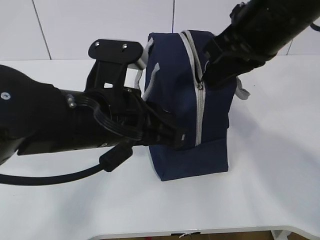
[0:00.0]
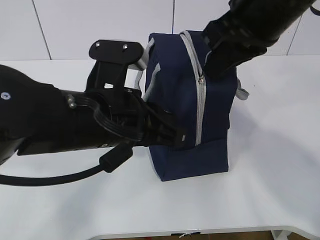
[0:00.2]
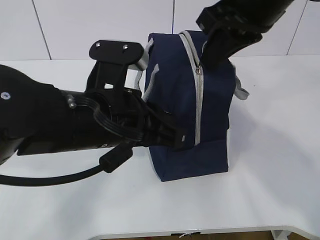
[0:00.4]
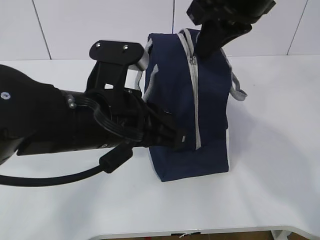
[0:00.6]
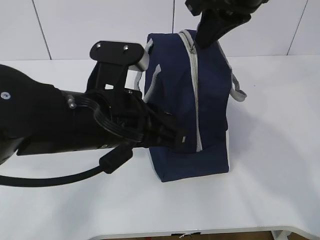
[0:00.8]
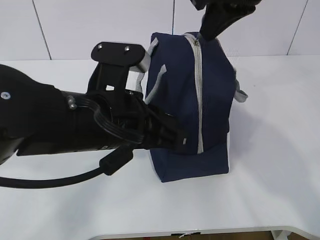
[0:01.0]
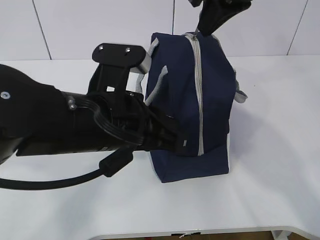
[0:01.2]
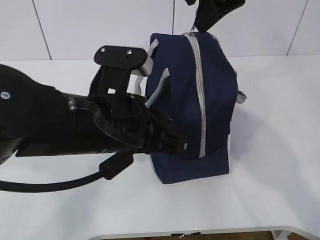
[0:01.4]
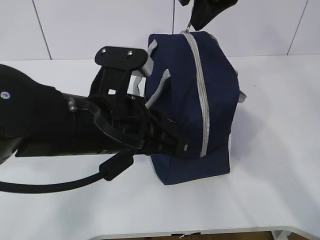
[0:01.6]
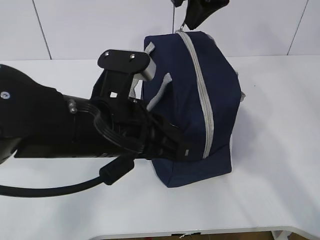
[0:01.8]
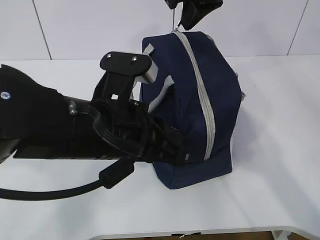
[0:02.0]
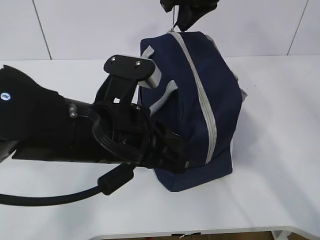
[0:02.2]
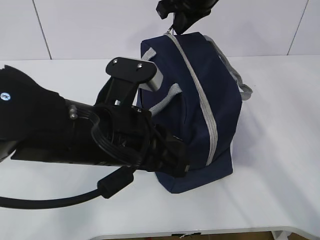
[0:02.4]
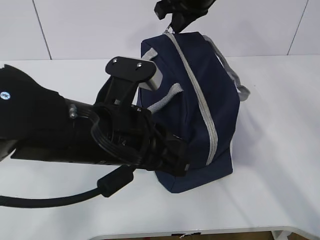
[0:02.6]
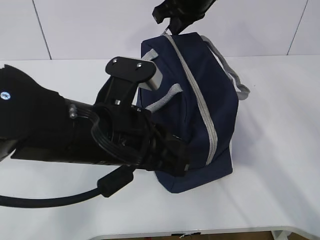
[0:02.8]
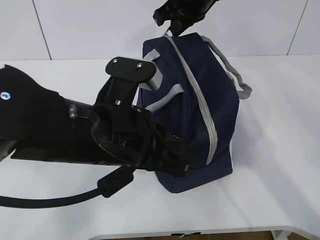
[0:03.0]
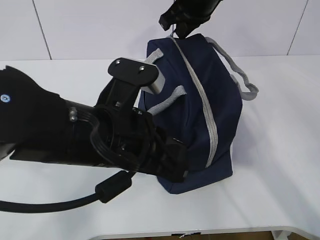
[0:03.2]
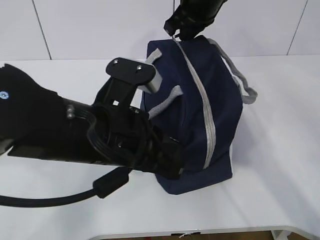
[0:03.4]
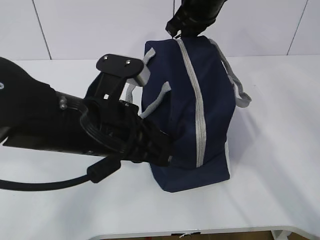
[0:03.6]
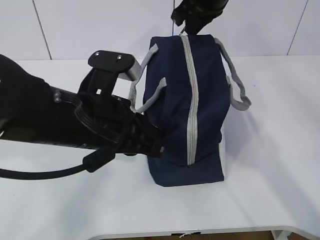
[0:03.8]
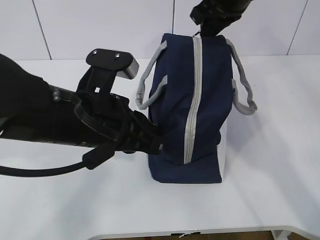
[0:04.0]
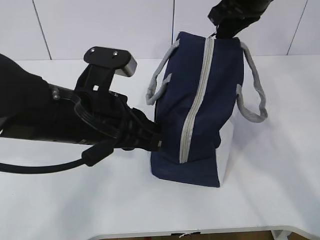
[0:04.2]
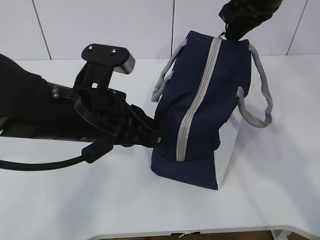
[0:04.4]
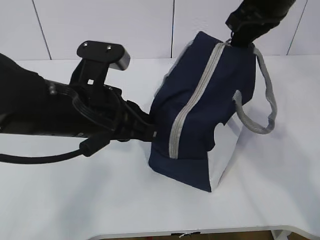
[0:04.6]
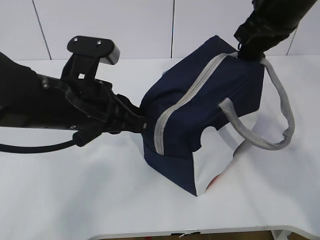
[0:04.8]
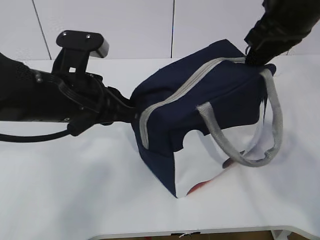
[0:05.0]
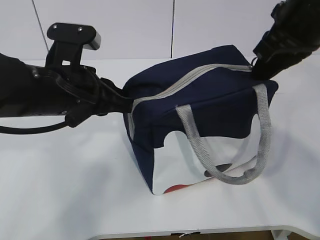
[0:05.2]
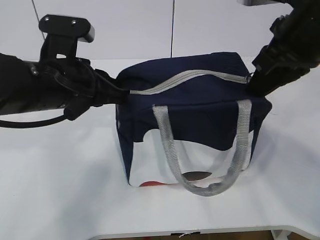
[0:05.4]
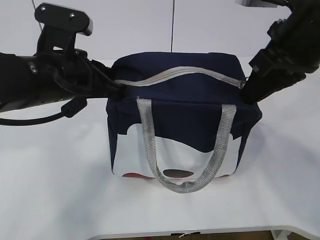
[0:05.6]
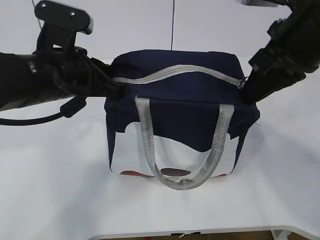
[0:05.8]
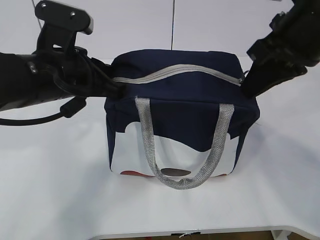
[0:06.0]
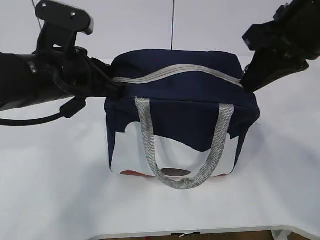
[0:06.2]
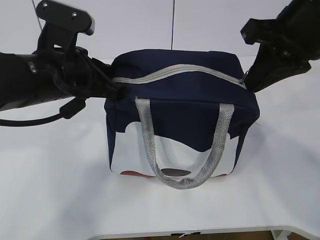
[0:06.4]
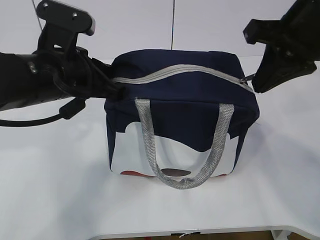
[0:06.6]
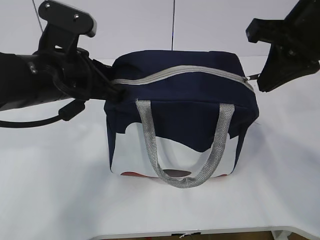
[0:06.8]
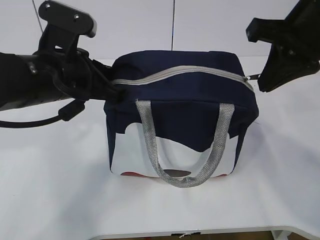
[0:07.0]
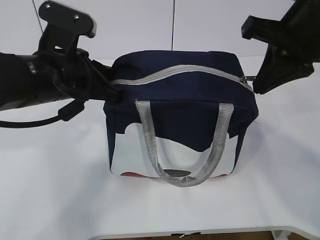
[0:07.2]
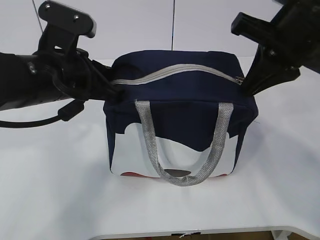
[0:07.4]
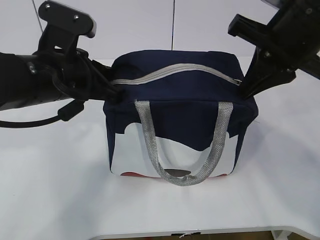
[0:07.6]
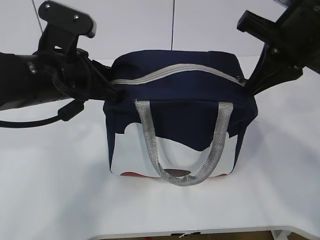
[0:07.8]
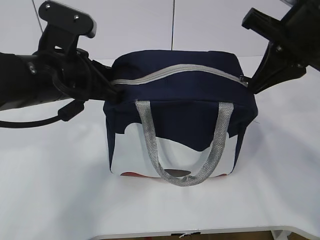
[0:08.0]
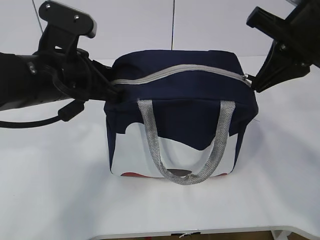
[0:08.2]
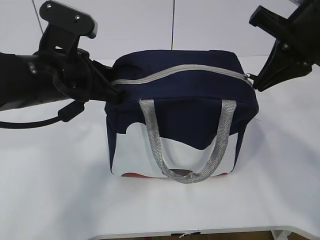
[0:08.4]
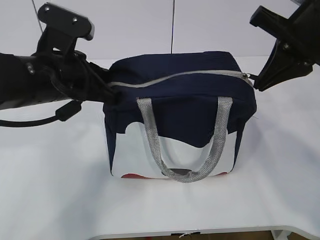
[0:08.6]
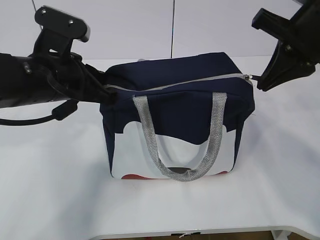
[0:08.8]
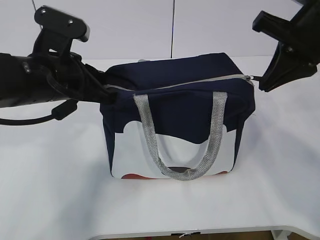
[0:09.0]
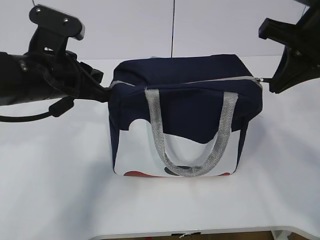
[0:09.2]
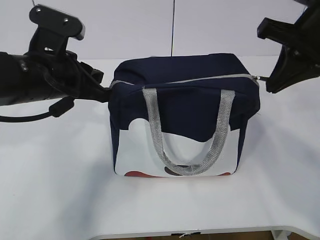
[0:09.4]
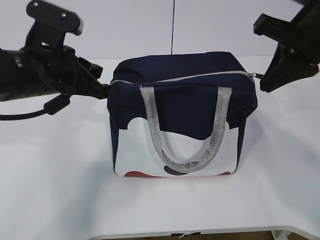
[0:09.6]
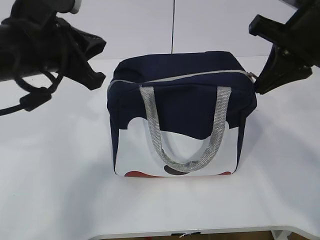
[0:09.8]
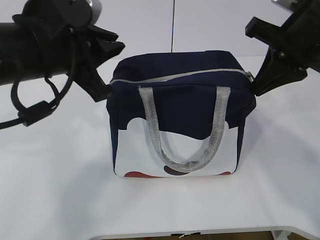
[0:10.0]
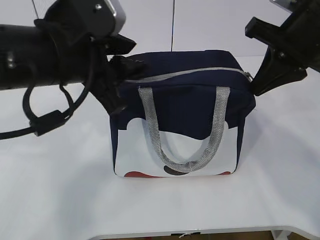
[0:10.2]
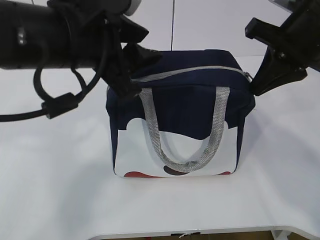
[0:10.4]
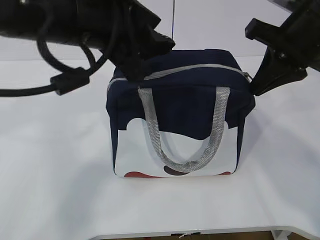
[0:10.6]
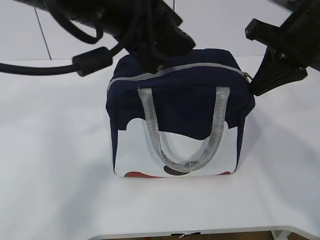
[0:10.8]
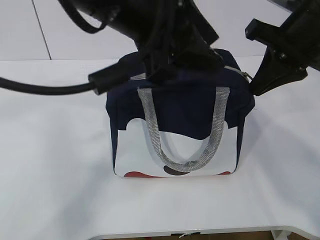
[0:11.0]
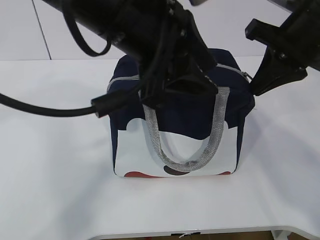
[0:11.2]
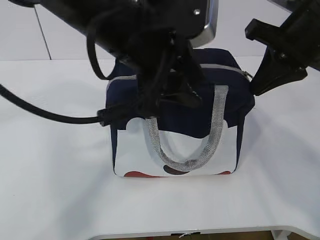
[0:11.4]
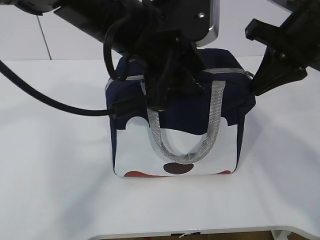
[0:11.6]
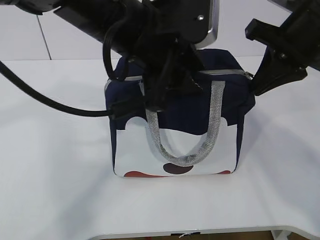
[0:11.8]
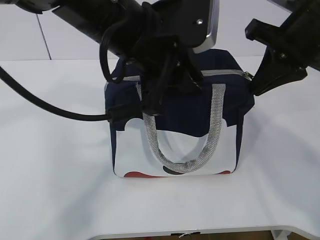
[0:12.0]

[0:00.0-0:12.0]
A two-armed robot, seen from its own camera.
0:00.0 to 0:01.6: The right gripper moves forward, some 10 cm.
0:01.6 to 0:03.0: The right gripper moves forward and downward, about 10 cm.
0:03.0 to 0:04.4: The right gripper travels to the right and backward by approximately 10 cm.
0:04.4 to 0:06.0: The right gripper is displaced backward by roughly 10 cm. The left gripper heads forward, covering roughly 5 cm.
0:07.6 to 0:09.0: There are only small adjustments of the grippers.
0:09.0 to 0:10.4: The left gripper heads upward and to the right, covering approximately 10 cm, and opens up.
0:10.4 to 0:12.0: The left gripper shifts about 5 cm to the right.

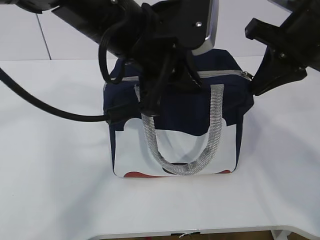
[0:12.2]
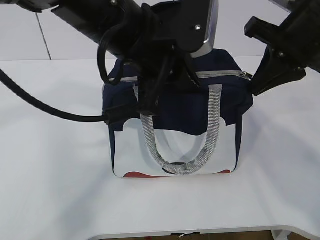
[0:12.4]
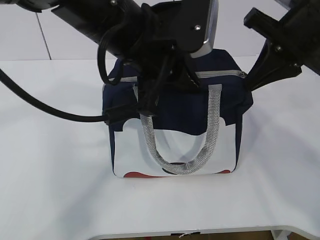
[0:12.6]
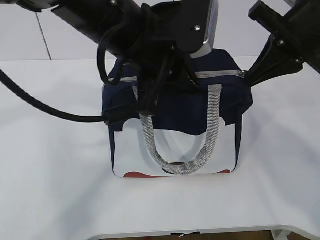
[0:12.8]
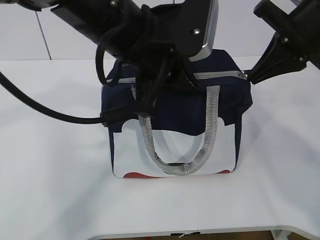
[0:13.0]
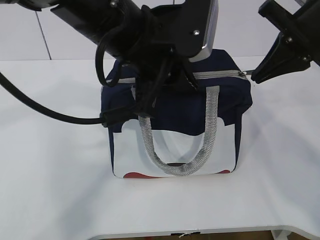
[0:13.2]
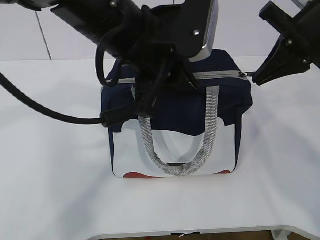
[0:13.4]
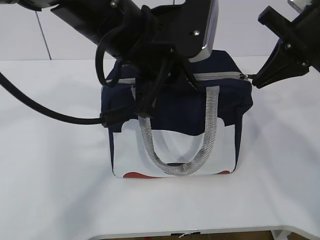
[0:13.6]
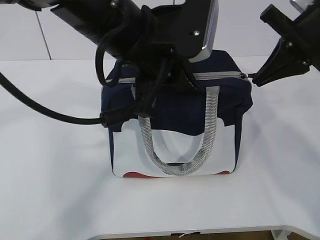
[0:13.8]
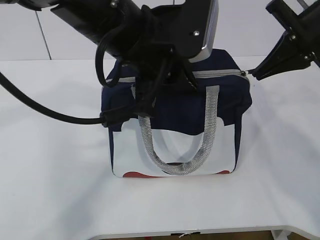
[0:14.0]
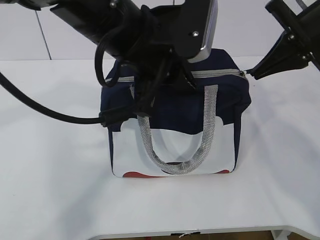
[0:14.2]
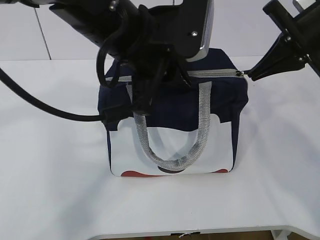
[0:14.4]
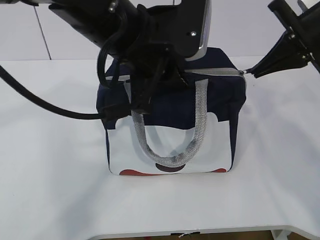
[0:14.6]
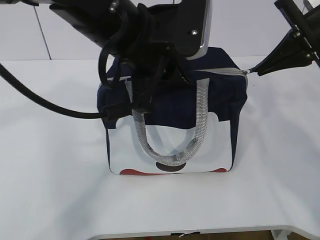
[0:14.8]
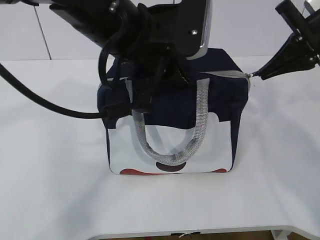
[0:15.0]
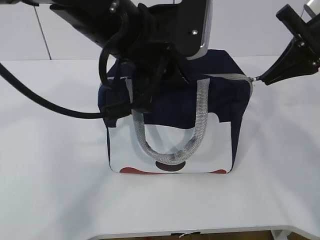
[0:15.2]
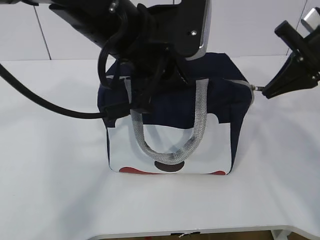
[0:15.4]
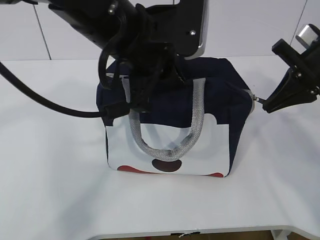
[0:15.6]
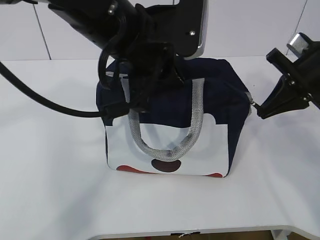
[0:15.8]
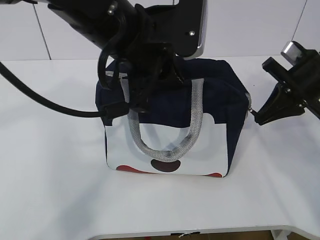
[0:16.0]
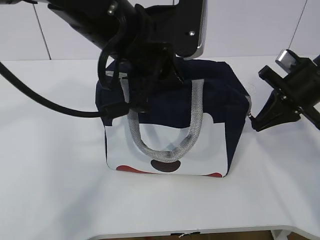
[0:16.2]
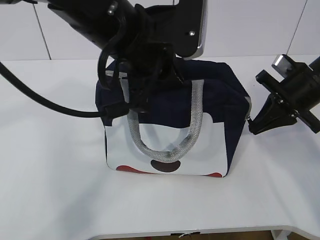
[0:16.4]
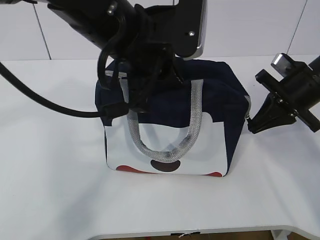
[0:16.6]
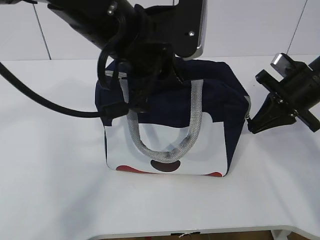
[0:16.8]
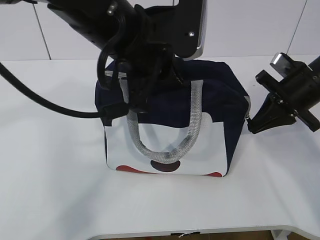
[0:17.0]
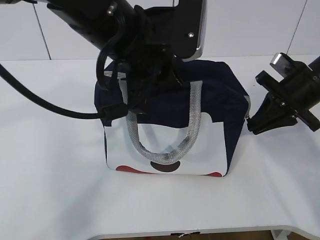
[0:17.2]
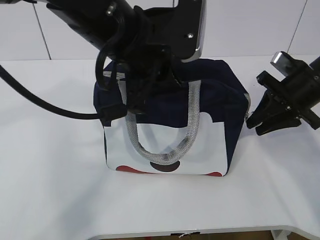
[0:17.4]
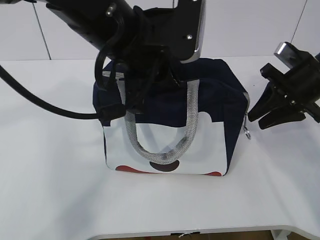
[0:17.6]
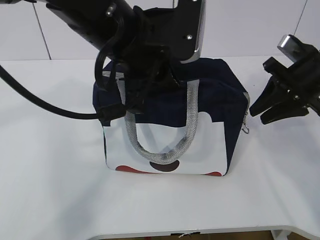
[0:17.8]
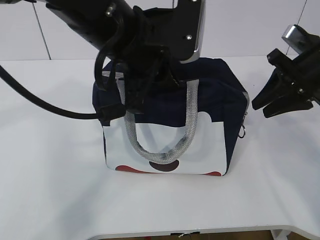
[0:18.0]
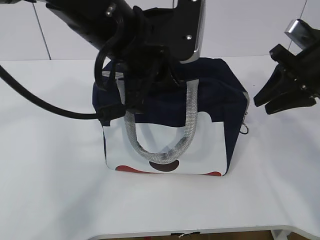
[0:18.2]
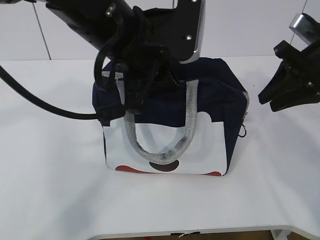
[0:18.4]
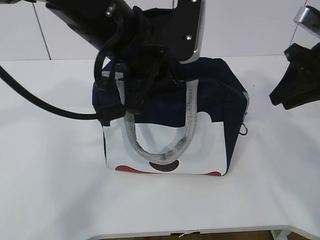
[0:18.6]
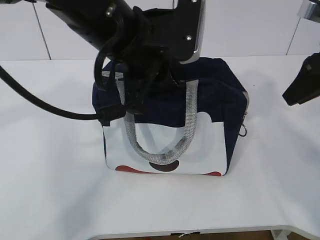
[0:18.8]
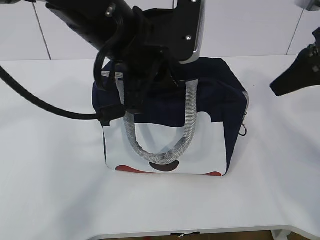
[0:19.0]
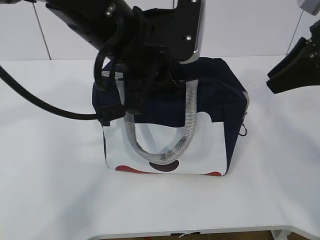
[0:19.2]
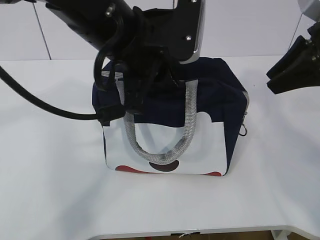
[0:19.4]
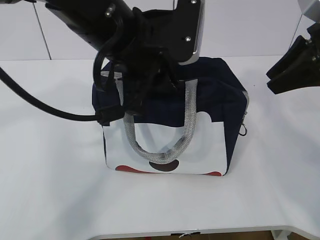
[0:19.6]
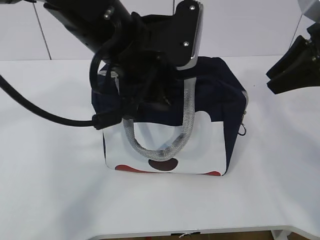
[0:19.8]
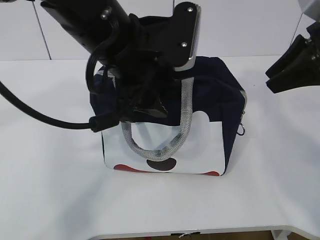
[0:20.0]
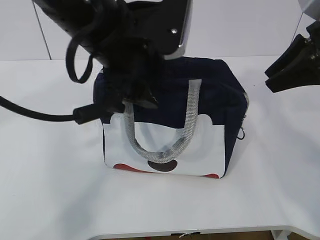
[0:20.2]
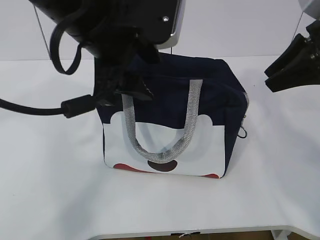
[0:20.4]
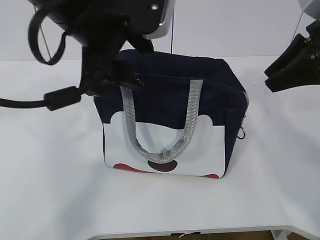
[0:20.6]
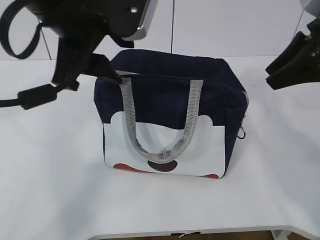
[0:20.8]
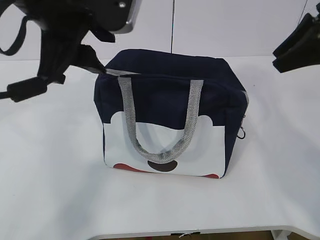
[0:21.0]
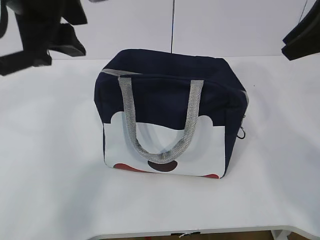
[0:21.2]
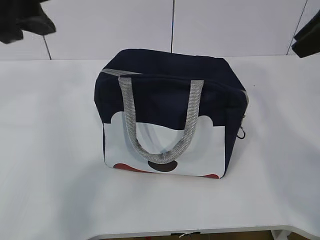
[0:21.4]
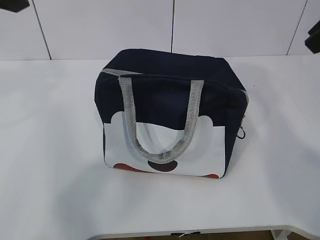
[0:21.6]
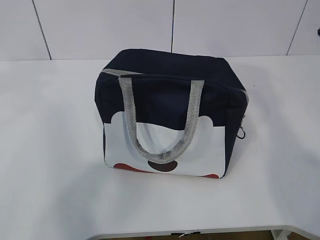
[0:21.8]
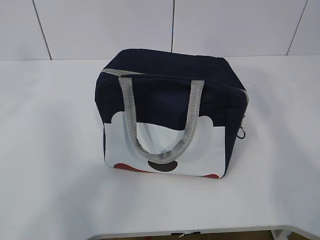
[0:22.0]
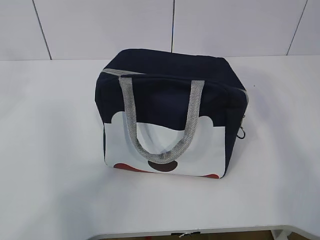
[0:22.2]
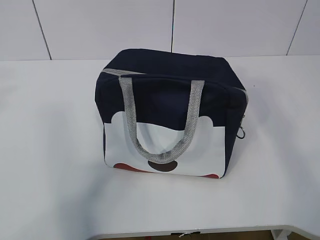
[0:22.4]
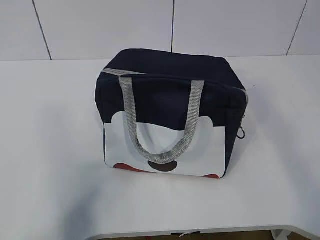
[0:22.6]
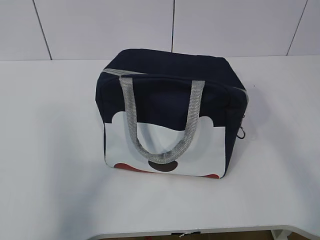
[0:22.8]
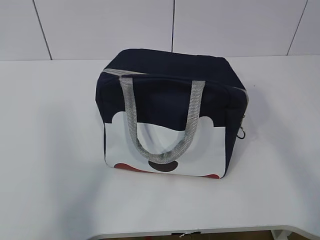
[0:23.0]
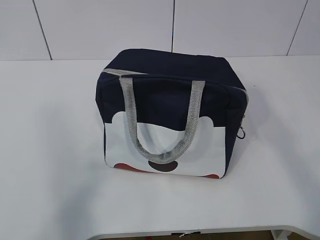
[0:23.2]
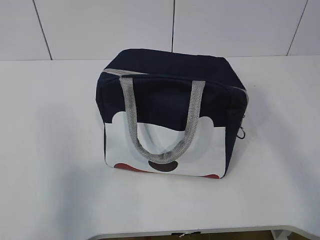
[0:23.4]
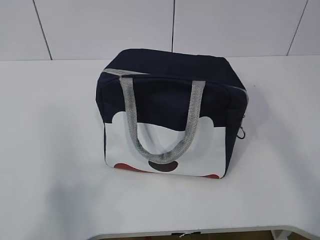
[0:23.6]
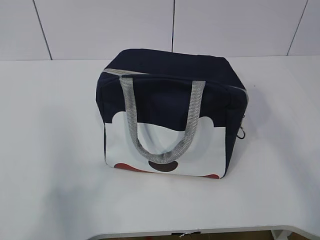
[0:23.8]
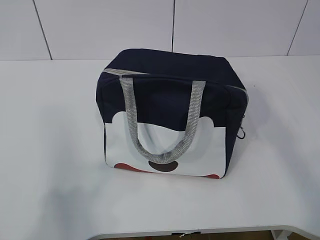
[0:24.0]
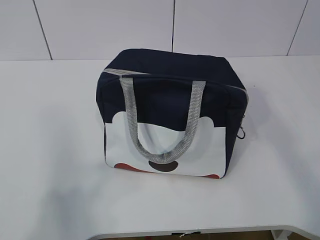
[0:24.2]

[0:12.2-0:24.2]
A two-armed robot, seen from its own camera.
Step, 0:12.2 to 0:18.4: zip up the zipper to close the bag.
0:12.2 to 0:13.8: The grippers move only a little.
0:13.8 to 0:15.2: The grippers move only a little.
0:15.2 to 0:16.6: The right gripper goes approximately 10 cm downward.
0:16.6 to 0:18.2: The right gripper heads upward, covering about 5 cm, and opens.
0:18.2 to 0:19.8: The right gripper shifts some 5 cm upward. The left gripper opens up.
0:19.8 to 0:21.2: The left gripper moves to the left and upward, approximately 10 cm.
0:21.2 to 0:22.6: The left gripper moves to the left, backward and upward, roughly 25 cm, while the right gripper heads backward and upward, covering some 20 cm.
0:22.6 to 0:24.2: The left gripper travels downward and backward by about 20 cm.
